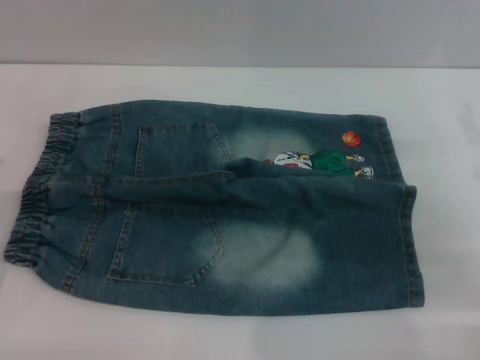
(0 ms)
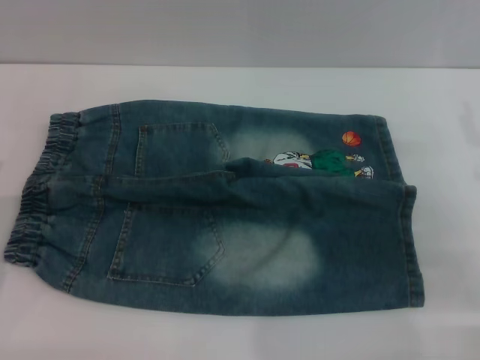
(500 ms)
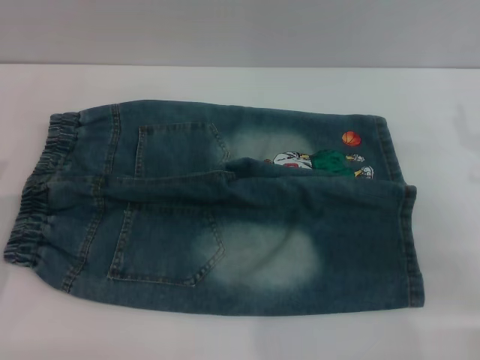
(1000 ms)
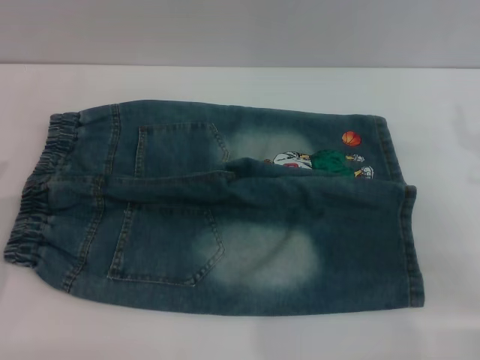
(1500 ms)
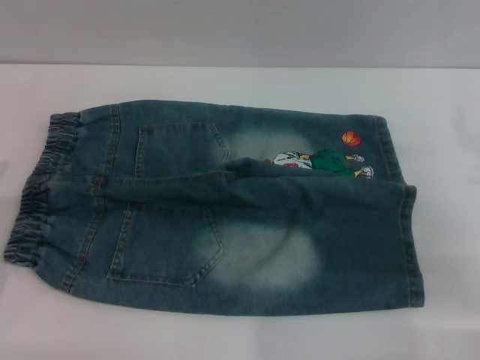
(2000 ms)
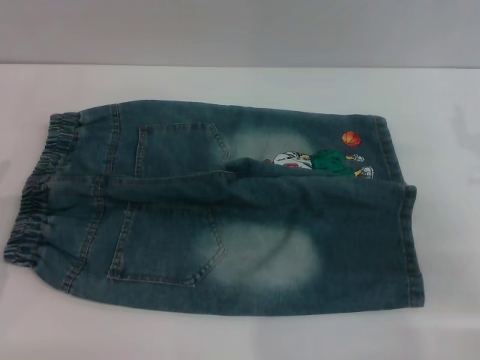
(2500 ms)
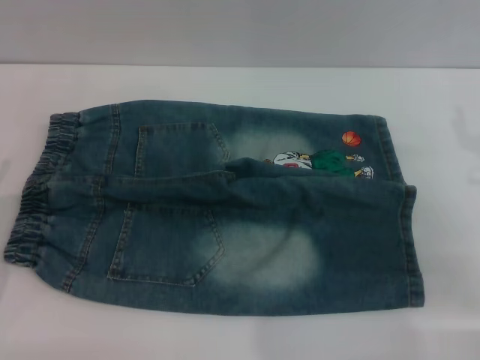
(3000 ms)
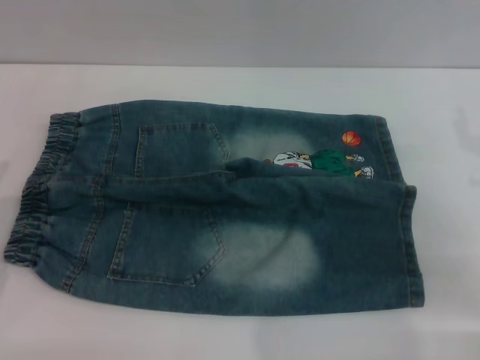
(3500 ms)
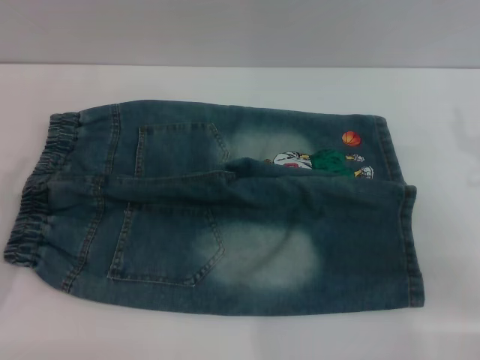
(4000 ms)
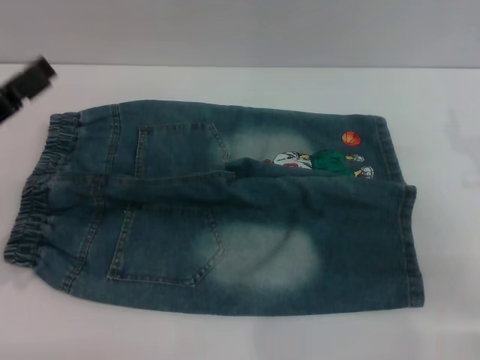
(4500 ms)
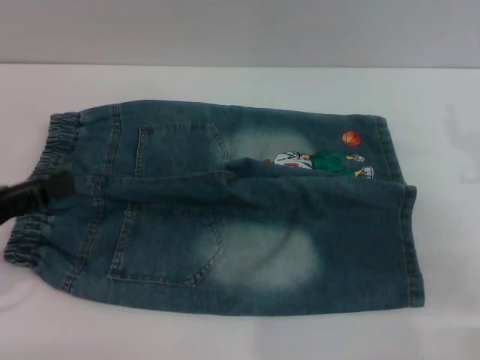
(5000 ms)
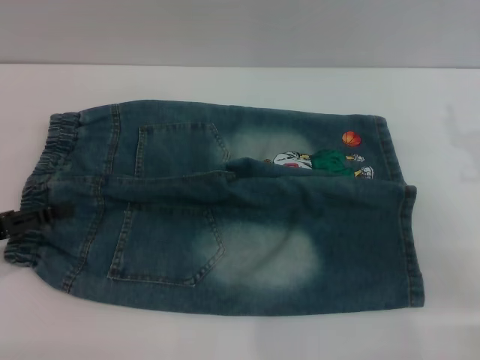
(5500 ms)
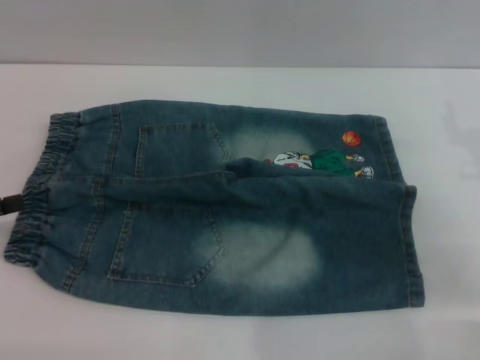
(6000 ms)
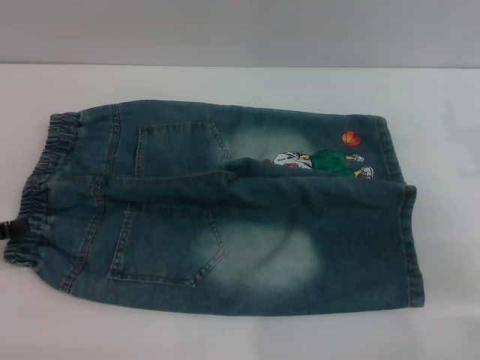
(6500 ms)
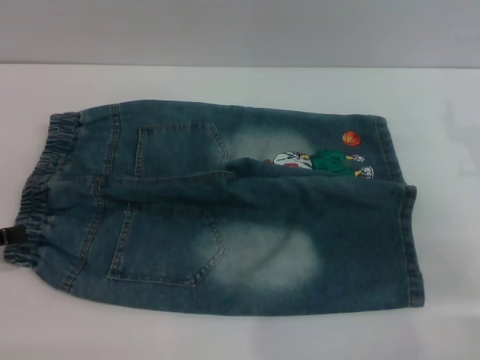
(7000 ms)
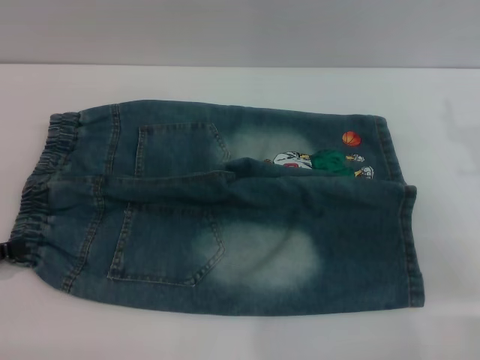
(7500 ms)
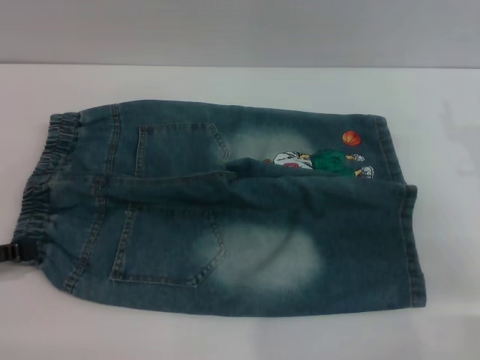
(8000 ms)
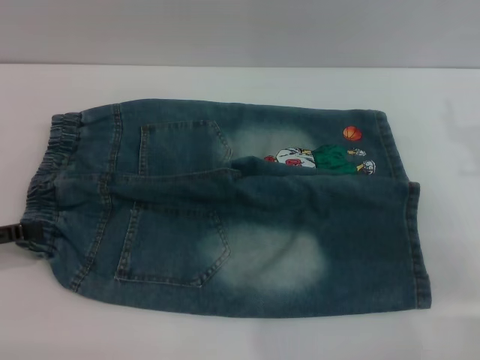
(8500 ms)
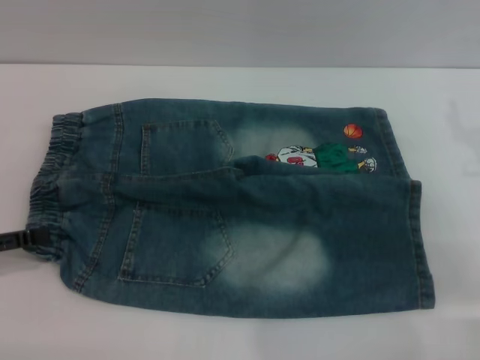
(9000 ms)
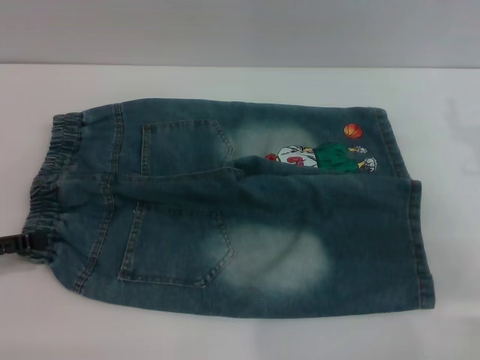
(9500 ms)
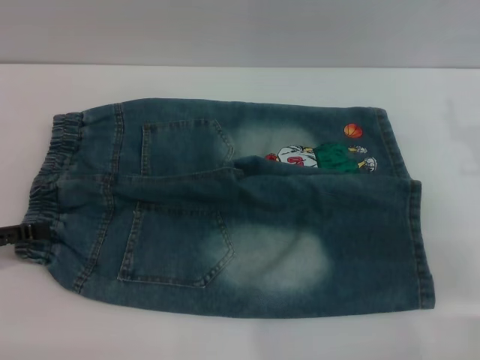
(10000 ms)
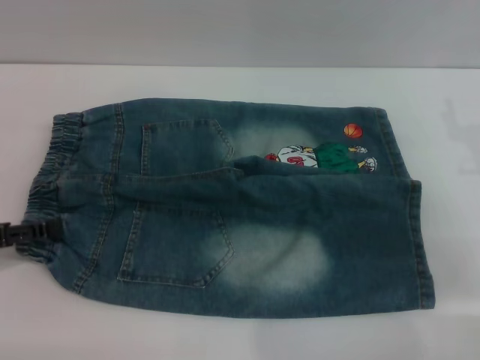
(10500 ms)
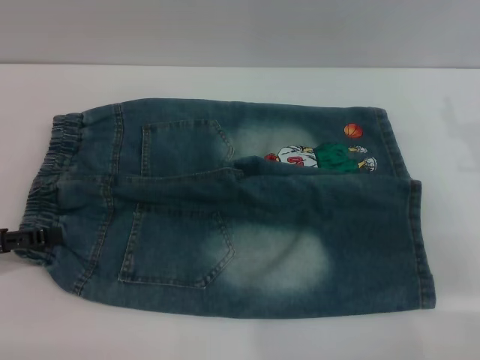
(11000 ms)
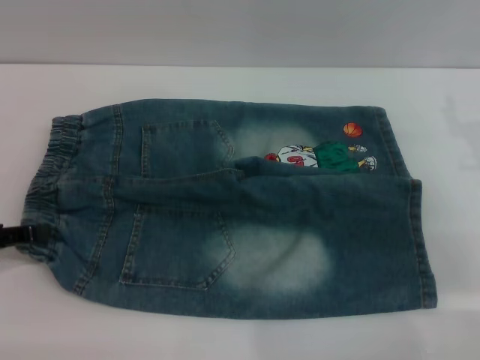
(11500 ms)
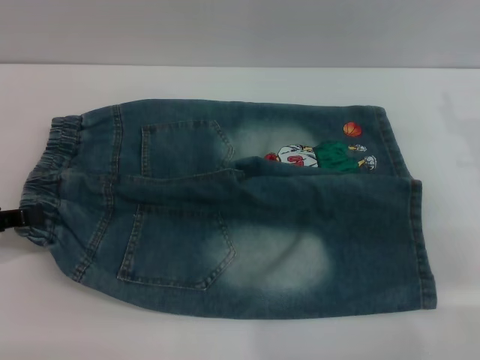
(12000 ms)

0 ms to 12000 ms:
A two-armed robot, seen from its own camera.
0 ms to 2000 ms: Neither gripper changes place.
6000 ms to 10000 ms: The grippers stay close to where they were, moving slightly.
10000 ms to 12000 ms: The left gripper closes up.

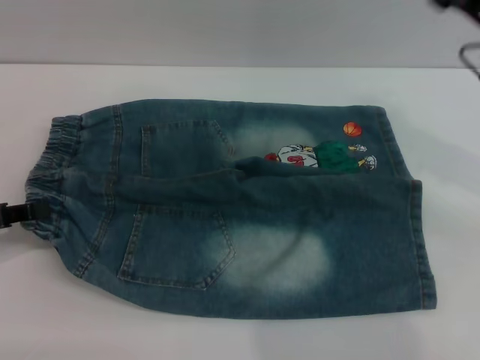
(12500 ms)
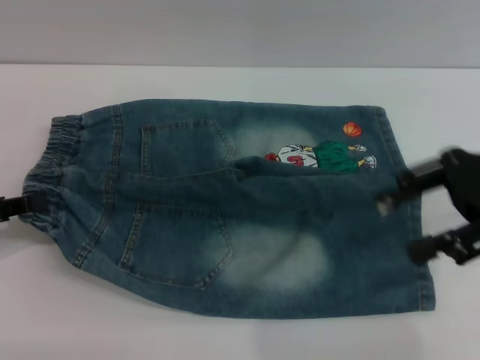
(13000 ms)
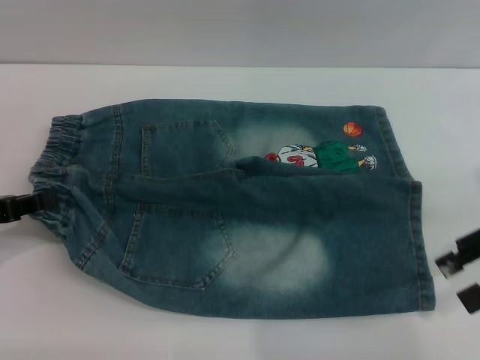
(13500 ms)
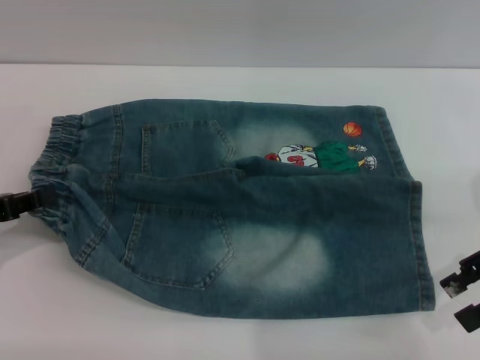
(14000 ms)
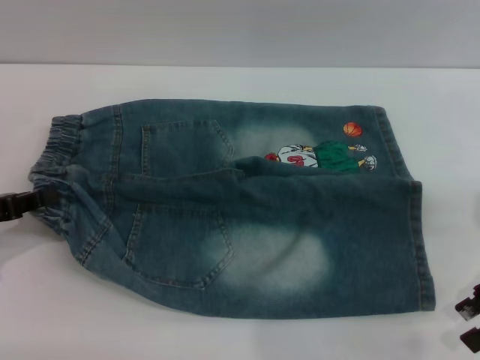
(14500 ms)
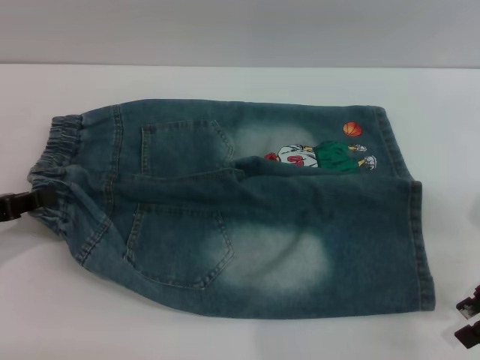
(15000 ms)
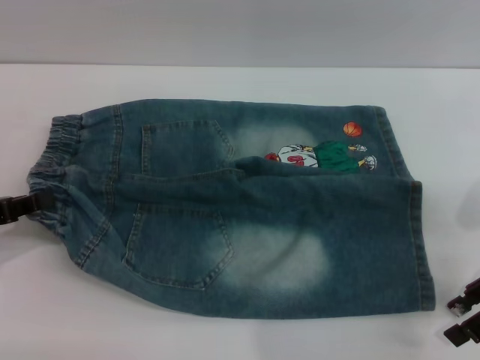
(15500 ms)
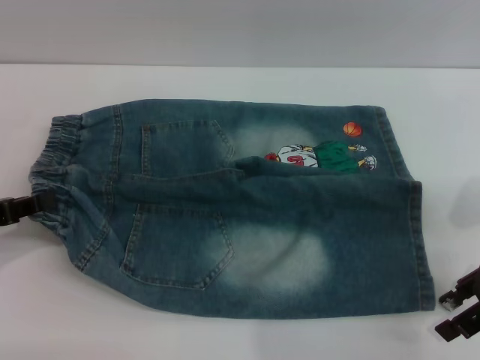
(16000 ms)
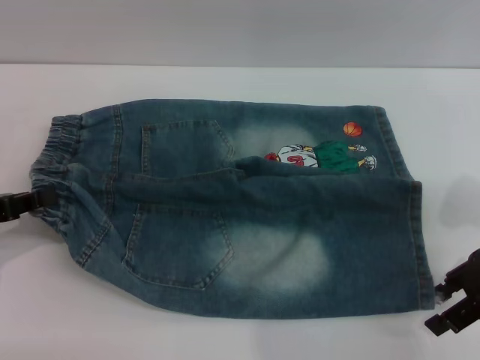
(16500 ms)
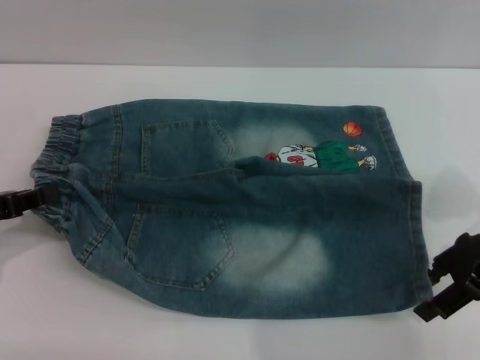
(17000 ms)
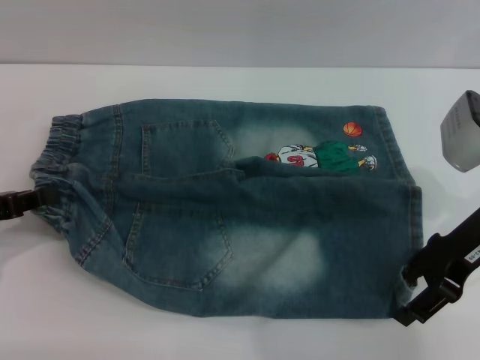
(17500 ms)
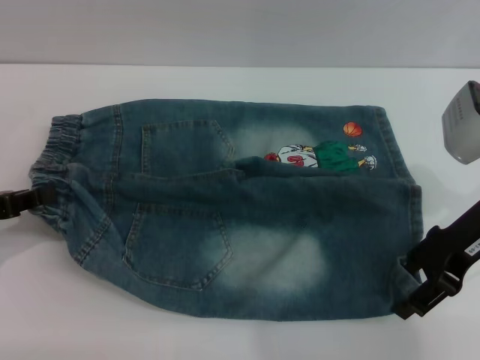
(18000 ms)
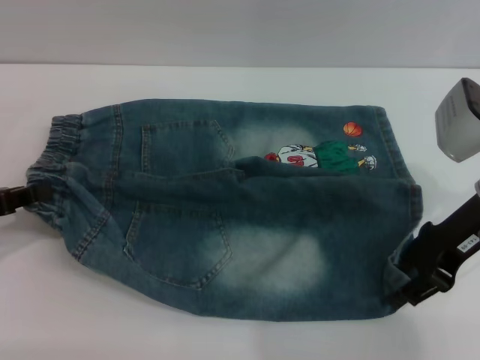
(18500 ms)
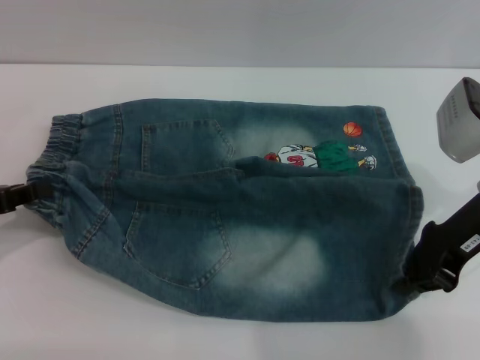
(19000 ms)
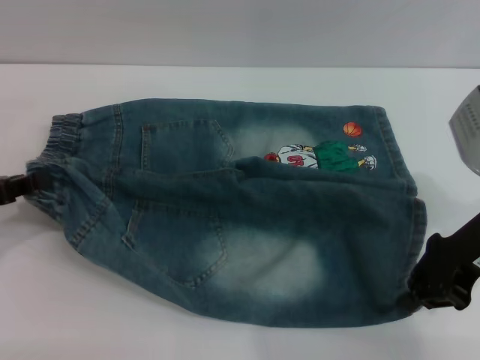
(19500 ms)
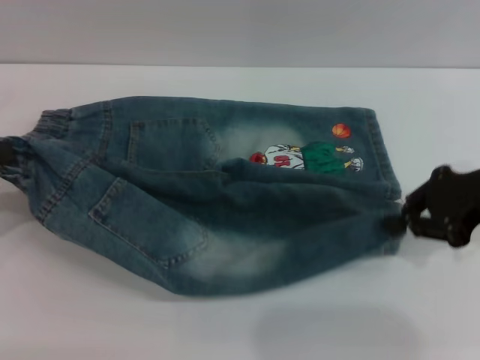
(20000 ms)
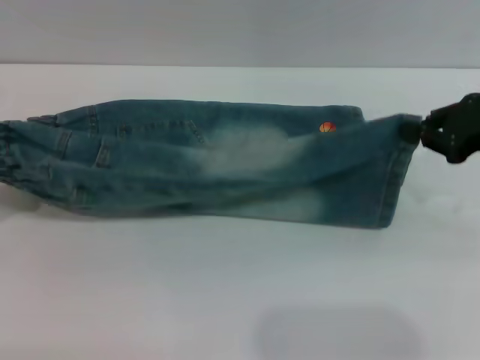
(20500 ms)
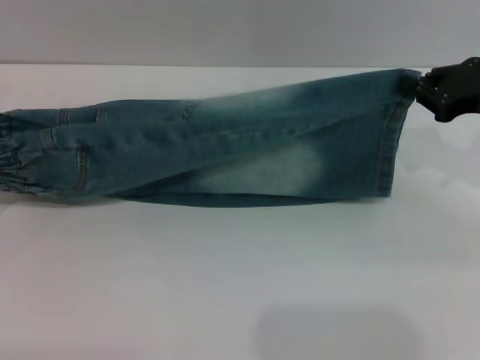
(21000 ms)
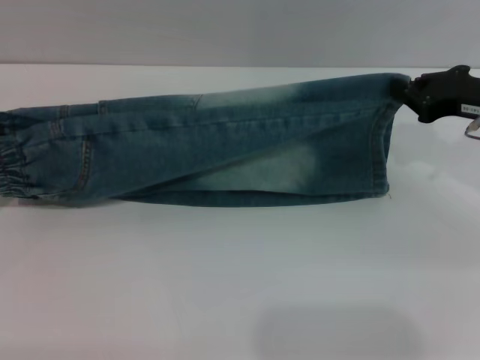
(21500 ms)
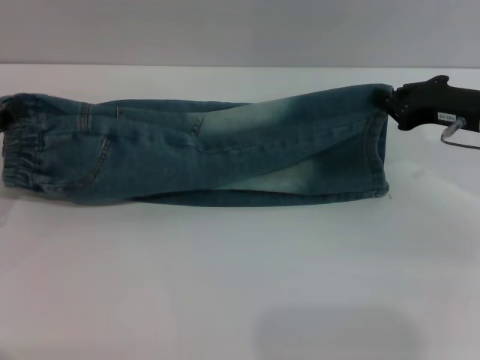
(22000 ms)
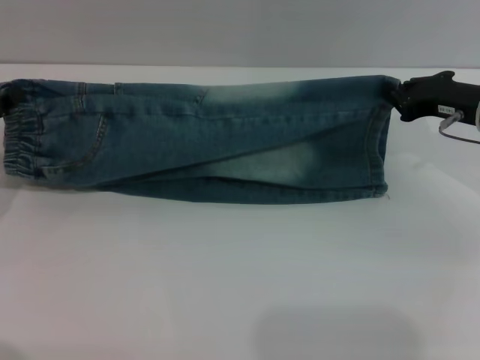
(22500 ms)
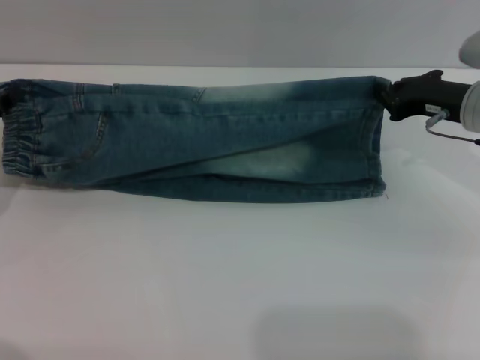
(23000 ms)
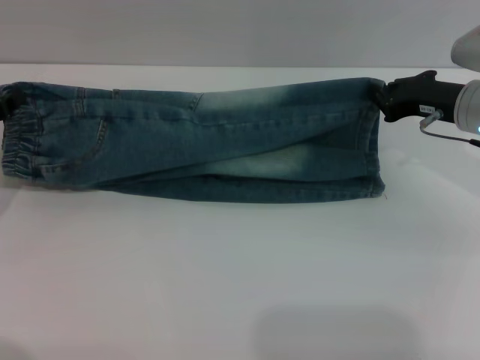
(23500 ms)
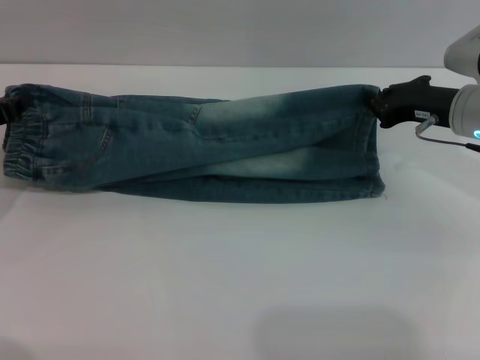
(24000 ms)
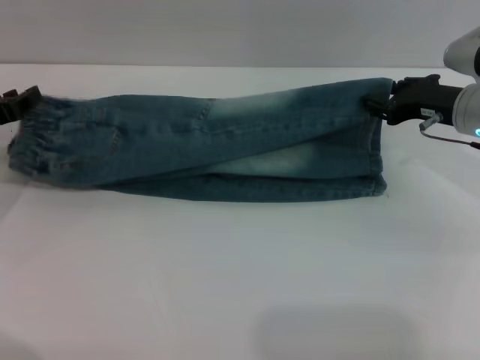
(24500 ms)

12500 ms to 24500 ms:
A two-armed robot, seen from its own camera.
12500 ms to 14500 ms: The right gripper heads to the right and backward, covering about 10 cm.
14500 ms to 16500 ms: The grippers make only small movements.
16500 ms to 18500 ms: The right gripper travels to the left by about 5 cm.
18500 ms to 20500 ms: The right gripper heads to the right, covering about 5 cm, and closes.
20500 ms to 22500 ms: The right gripper moves downward and forward, some 5 cm. Meanwhile the left gripper travels forward by some 5 cm.
22500 ms to 24500 ms: The right gripper opens.

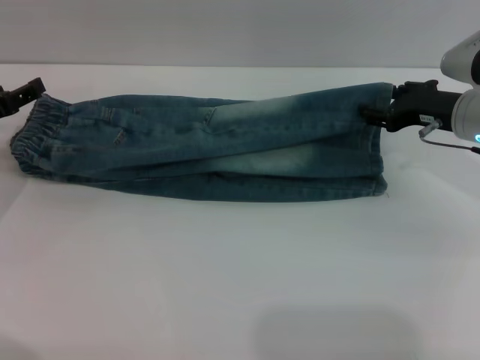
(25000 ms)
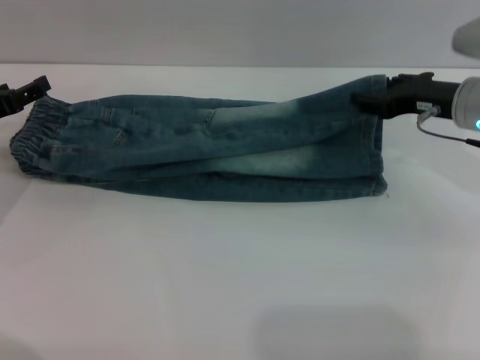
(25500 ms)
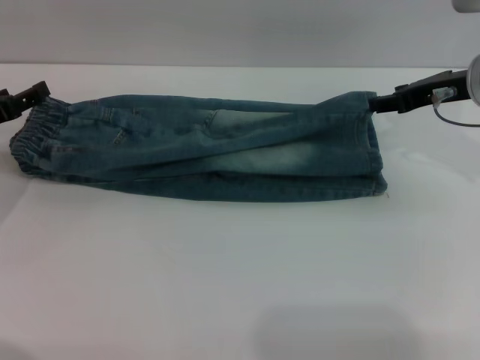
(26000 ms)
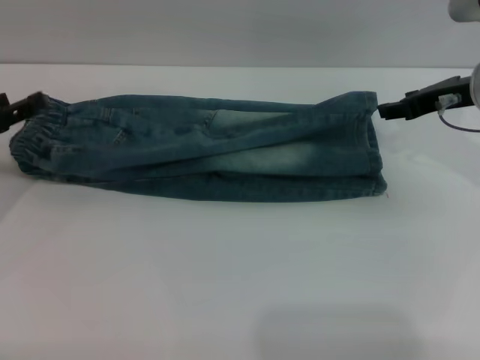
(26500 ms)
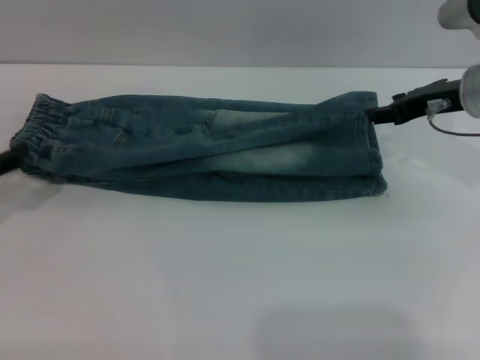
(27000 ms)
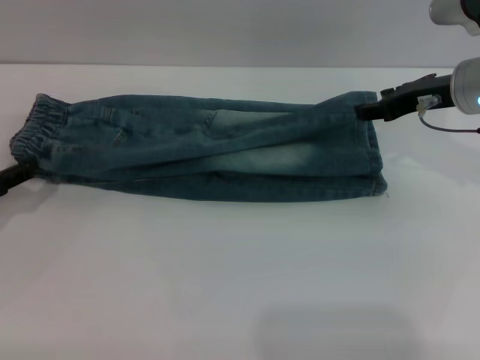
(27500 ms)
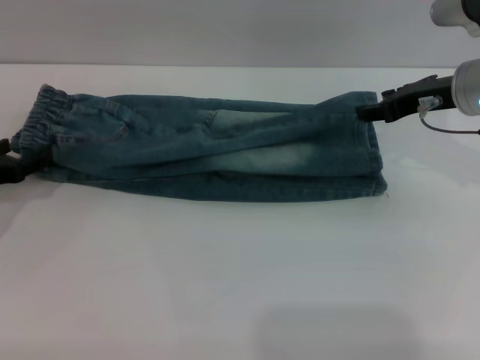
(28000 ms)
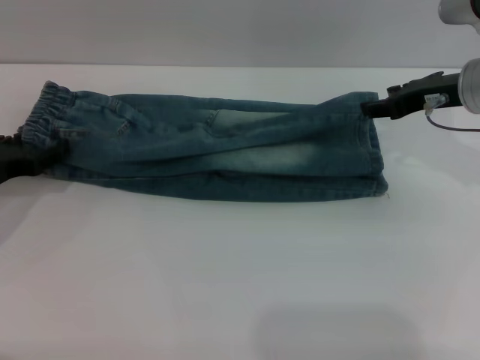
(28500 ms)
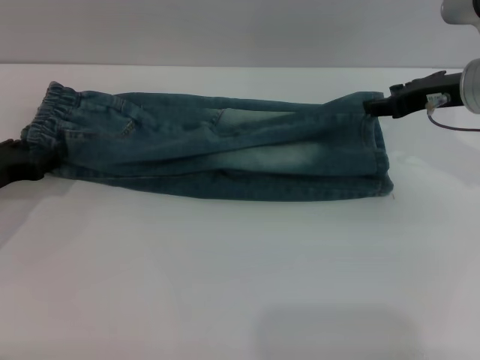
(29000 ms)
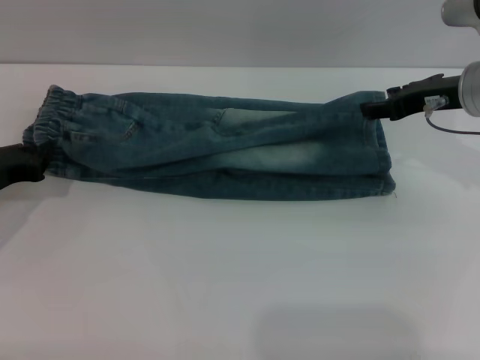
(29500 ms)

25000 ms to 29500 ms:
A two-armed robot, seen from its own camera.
25000 ms to 27000 ms: The right gripper is displaced upward by roughly 5 cm; the left gripper travels backward by roughly 5 cm.
27000 ms to 29500 ms: The left gripper shifts by some 5 cm, and closes.
